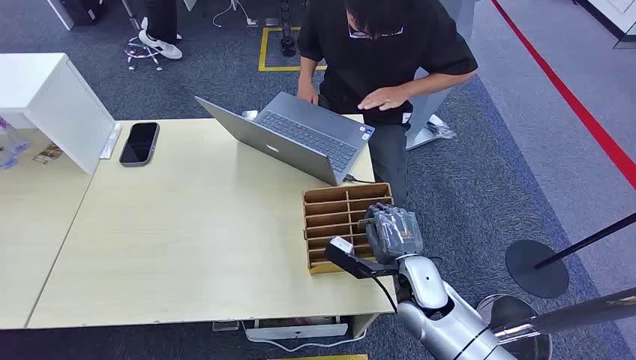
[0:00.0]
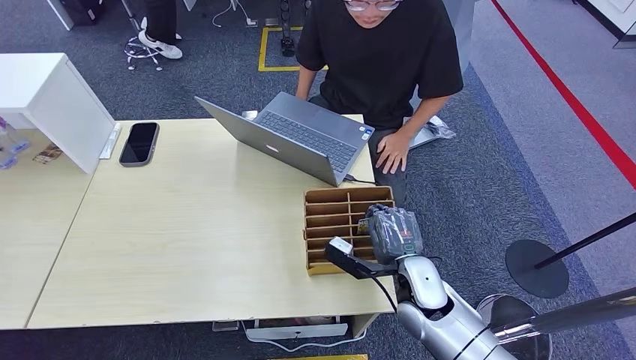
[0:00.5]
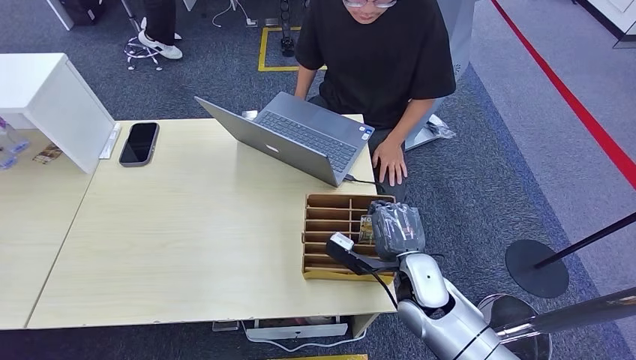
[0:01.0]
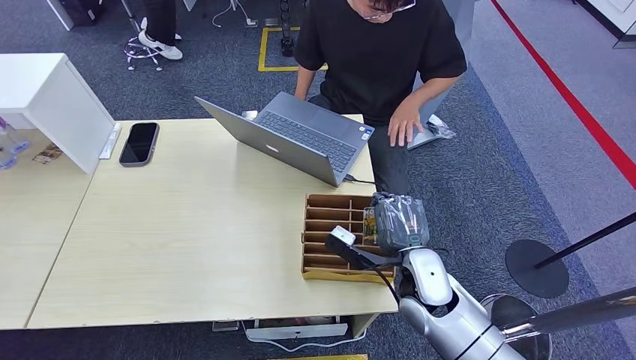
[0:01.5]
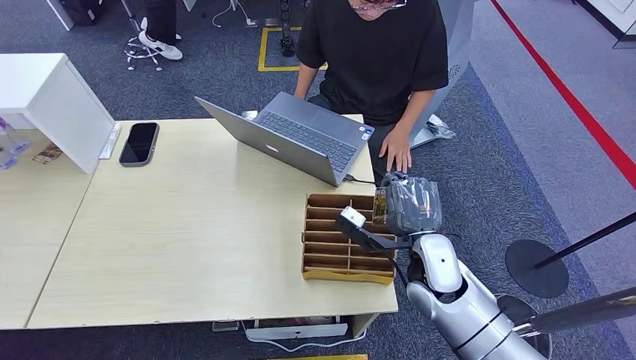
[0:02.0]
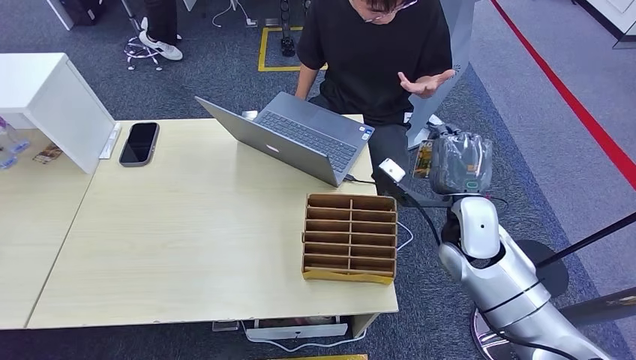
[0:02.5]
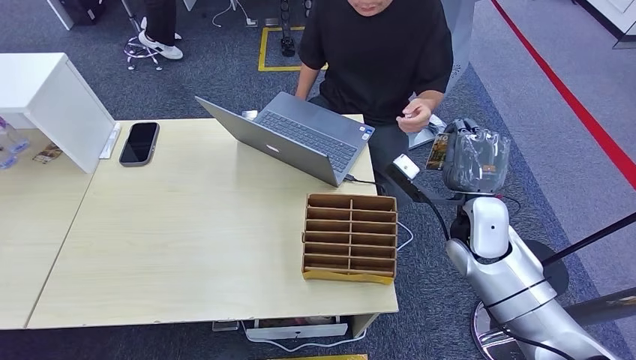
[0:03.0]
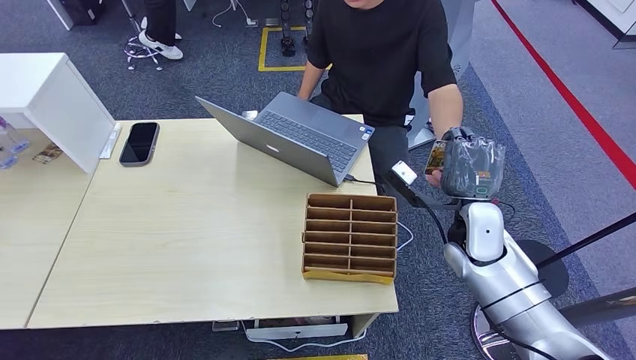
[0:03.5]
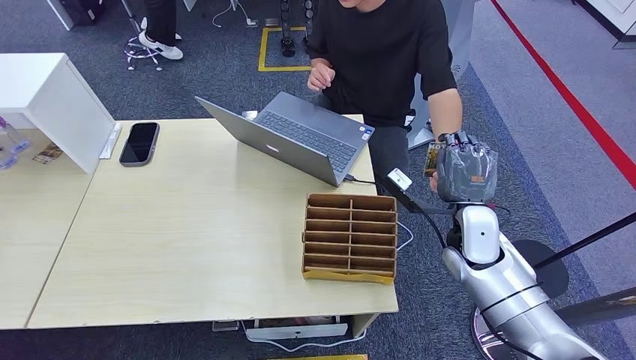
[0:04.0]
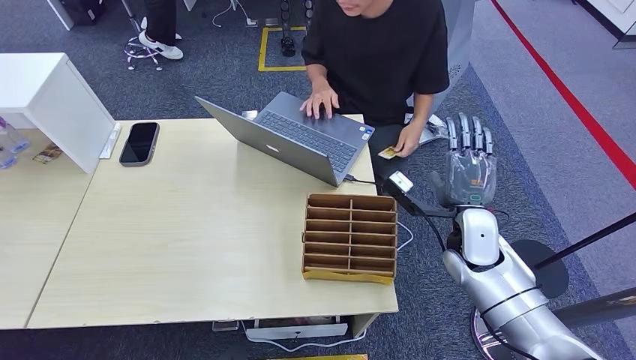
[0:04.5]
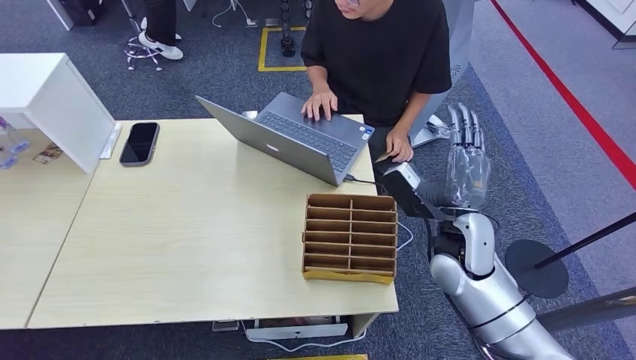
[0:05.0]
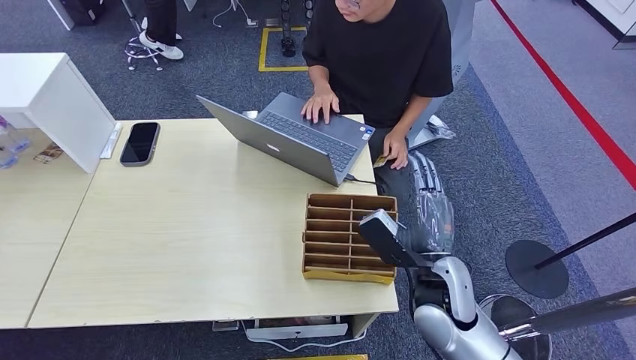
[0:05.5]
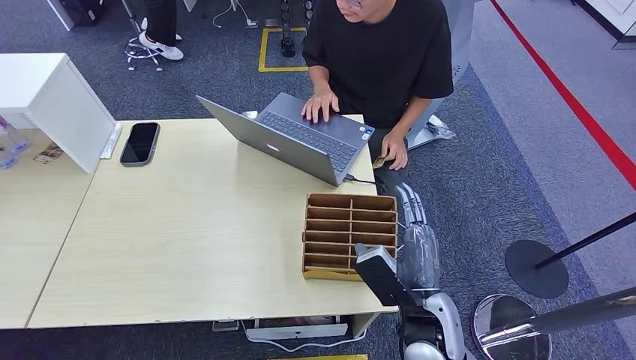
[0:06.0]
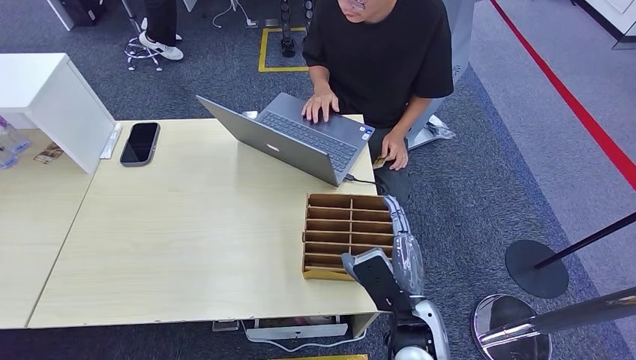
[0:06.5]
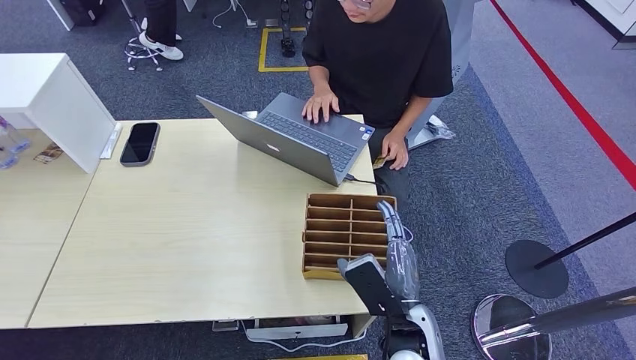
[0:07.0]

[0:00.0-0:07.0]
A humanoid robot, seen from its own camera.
Step, 0:00.0 to 0:01.5: Pick up the room card from the card holder.
Step, 0:02.0 to 0:07.0: Hand the room card to the target.
0:02.0 to 0:03.5: The right hand heads to the right, covering roughly 10 cm.
0:05.0 to 0:07.0: The right hand moves backward, to the left and downward, about 15 cm.
